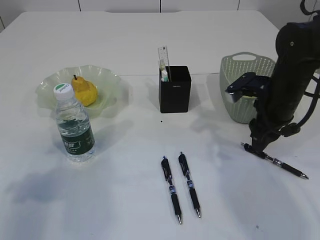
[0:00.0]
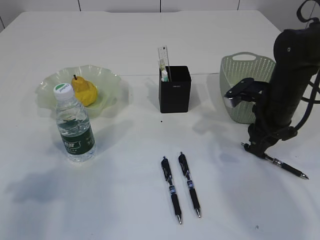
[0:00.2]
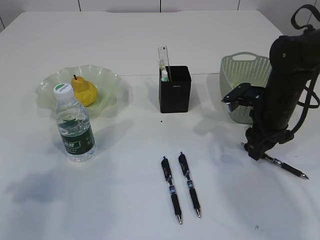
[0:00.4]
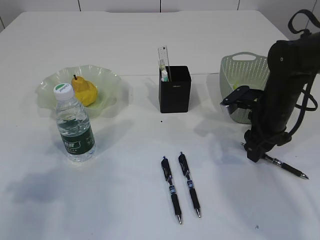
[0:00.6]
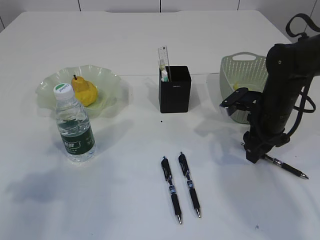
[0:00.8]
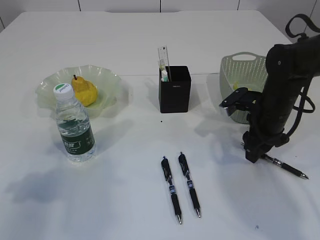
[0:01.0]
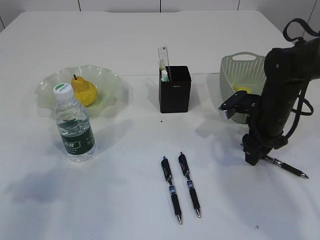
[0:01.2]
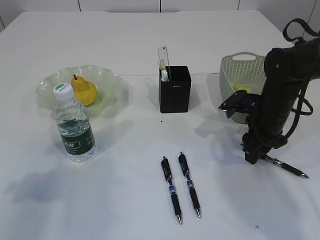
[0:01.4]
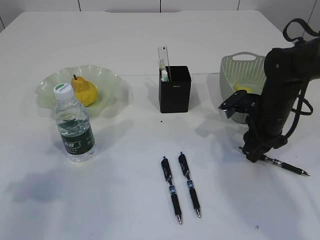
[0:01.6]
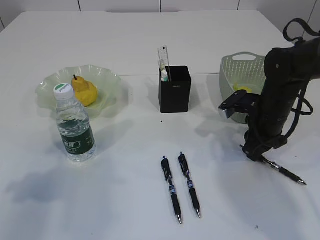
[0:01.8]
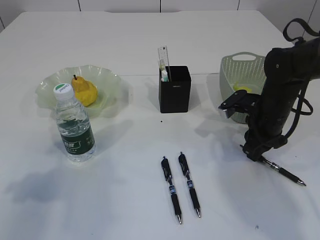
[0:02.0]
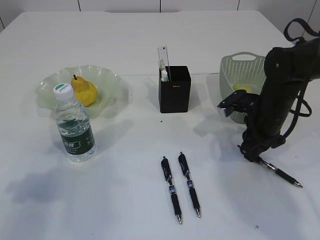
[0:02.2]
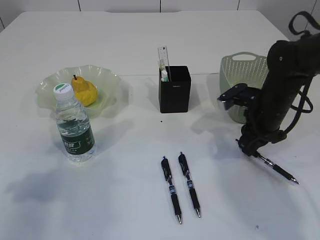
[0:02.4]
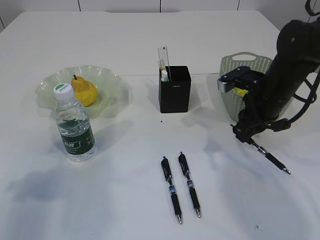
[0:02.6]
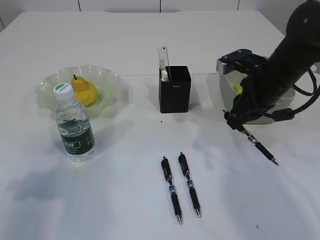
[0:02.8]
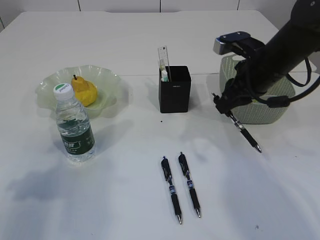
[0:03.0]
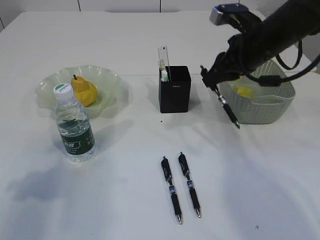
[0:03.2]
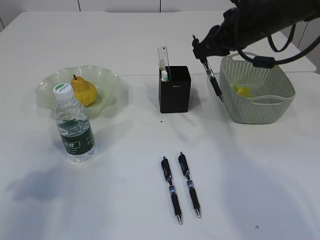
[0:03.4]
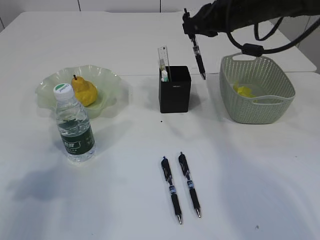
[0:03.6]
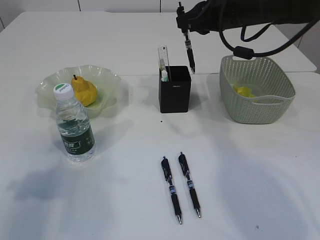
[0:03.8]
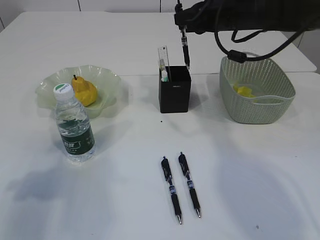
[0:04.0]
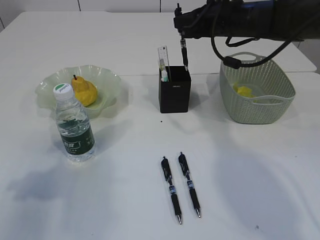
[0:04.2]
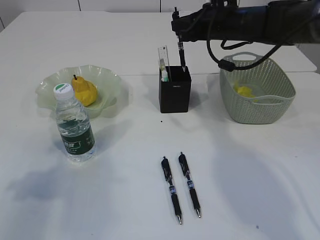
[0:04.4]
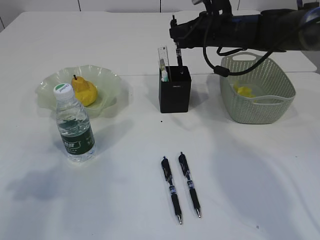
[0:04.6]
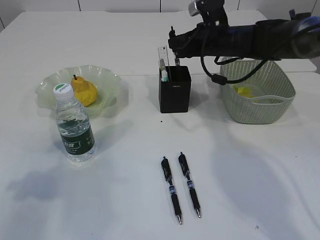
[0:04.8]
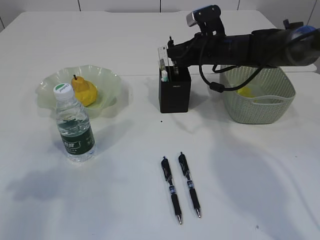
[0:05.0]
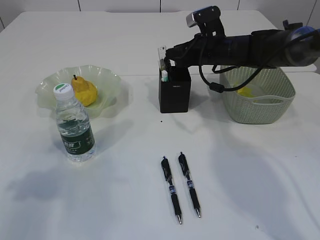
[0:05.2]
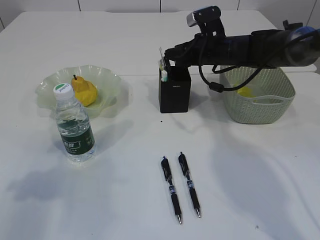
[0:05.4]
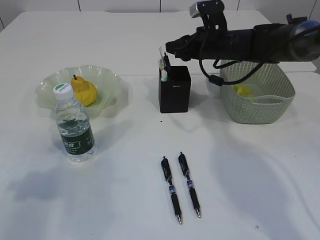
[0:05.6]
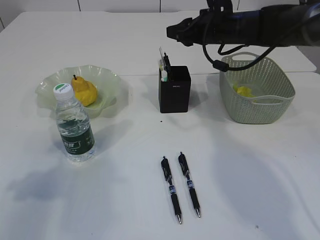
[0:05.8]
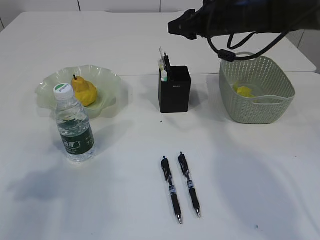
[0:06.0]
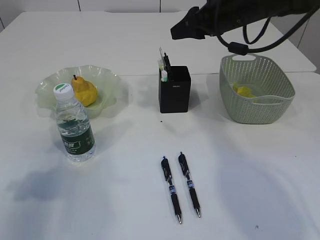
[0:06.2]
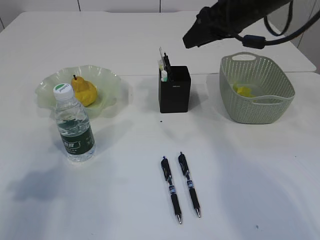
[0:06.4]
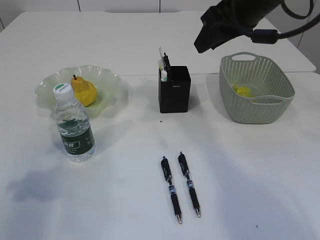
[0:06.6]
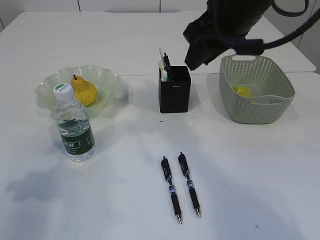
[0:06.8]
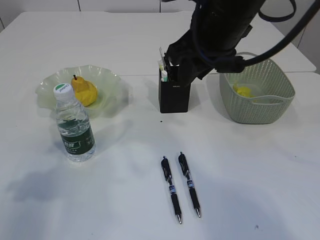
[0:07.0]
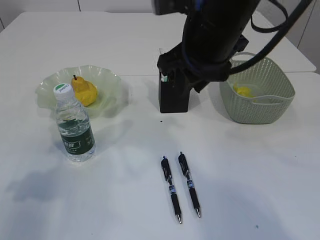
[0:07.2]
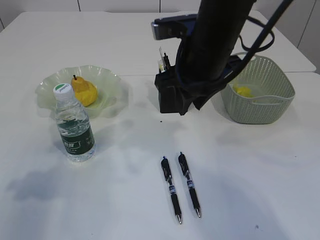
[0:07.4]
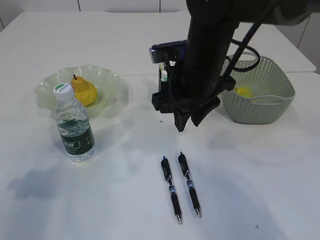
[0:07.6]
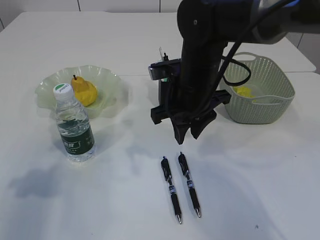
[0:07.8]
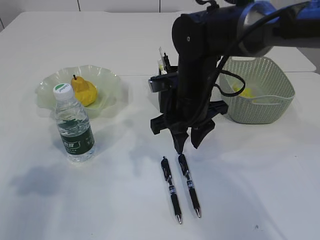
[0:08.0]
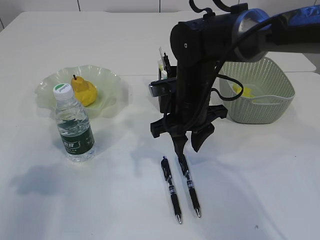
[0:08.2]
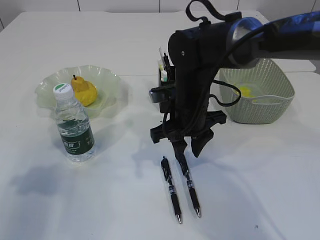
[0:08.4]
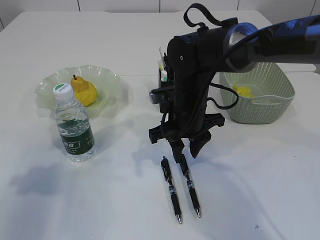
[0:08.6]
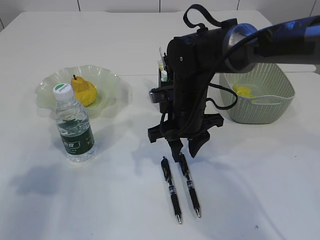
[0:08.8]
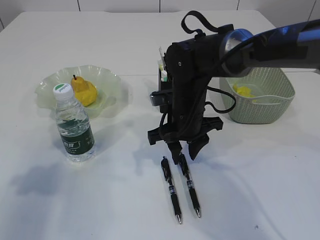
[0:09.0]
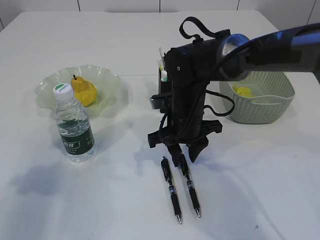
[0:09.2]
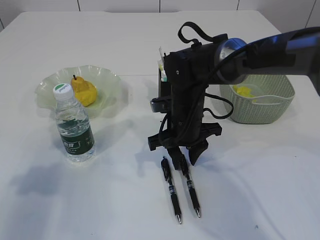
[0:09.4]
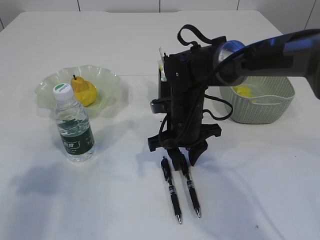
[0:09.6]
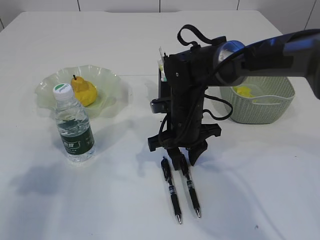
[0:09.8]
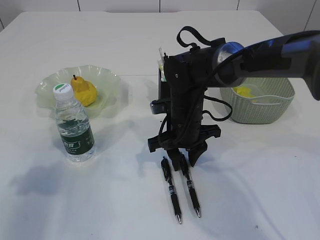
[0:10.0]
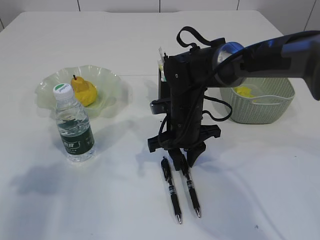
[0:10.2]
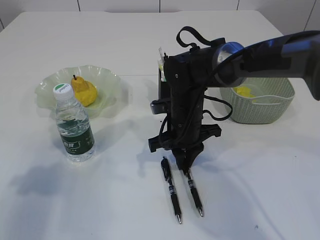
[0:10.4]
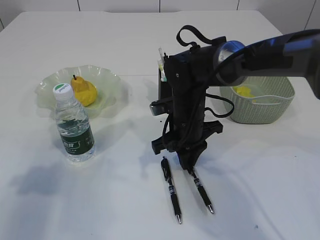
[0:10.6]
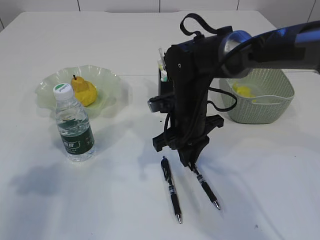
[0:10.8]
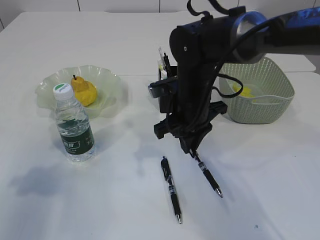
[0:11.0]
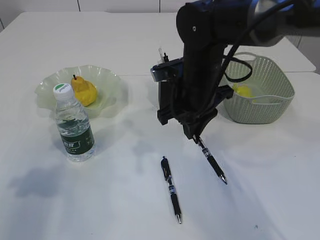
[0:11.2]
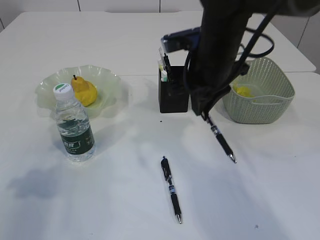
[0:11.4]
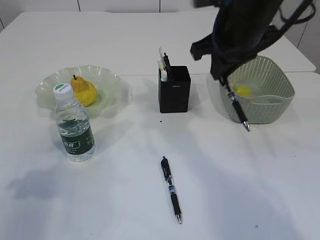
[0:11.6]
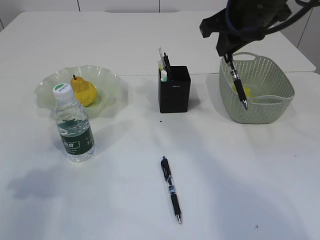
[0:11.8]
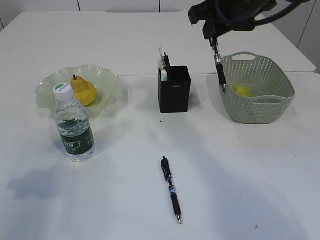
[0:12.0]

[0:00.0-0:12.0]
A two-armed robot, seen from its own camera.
Step, 0:00.0 to 0:02.4: Pick up the pen with right arm.
Step, 0:02.6 to 0:05.6: Place the pen into the pen holder.
Step, 0:05.8 to 0:11.0: Pick up the pen with right arm.
0:00.0 to 0:01.6: The grippers move only a little.
0:01.6 to 0:03.0: The right gripper moves upward, approximately 10 cm.
0:03.0 to 0:04.4: The right gripper heads forward, covering about 10 cm.
0:04.4 to 0:06.0: The right gripper moves about 5 cm downward and comes back.
0:06.0 to 0:07.6: The right gripper heads backward and to the left, covering approximately 15 cm.
0:07.6 to 0:09.0: The right gripper travels downward by about 10 cm.
0:09.0 to 0:10.4: The right gripper closes its fingers.
0:10.4 to 0:12.0: The right gripper is displaced upward by some 20 cm.

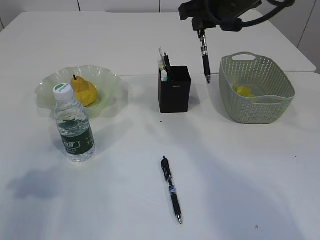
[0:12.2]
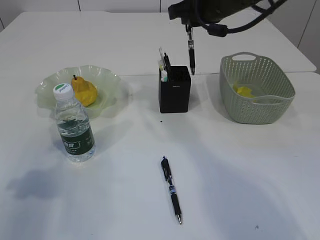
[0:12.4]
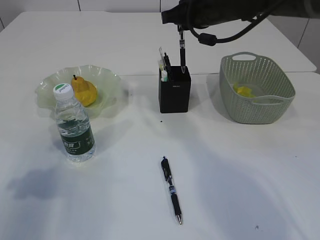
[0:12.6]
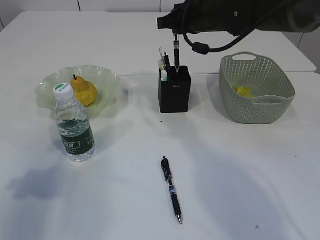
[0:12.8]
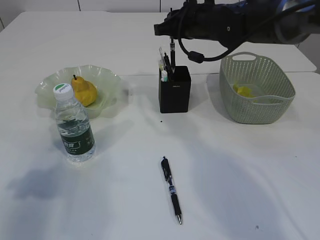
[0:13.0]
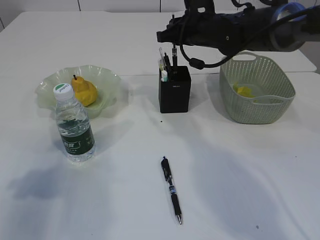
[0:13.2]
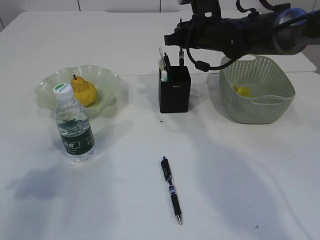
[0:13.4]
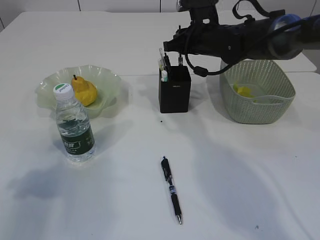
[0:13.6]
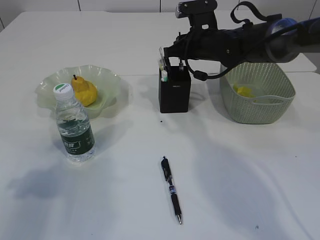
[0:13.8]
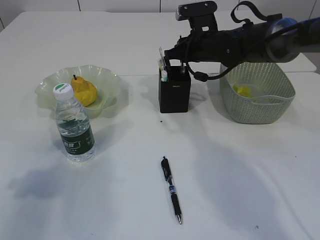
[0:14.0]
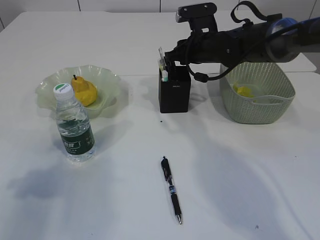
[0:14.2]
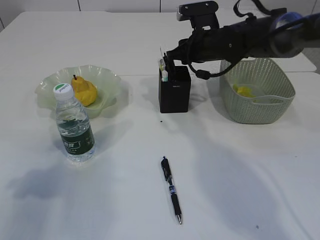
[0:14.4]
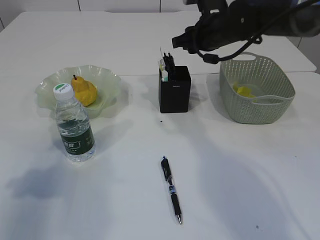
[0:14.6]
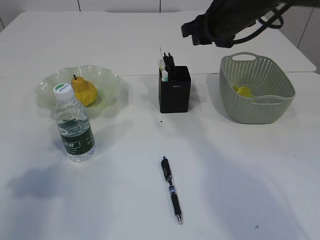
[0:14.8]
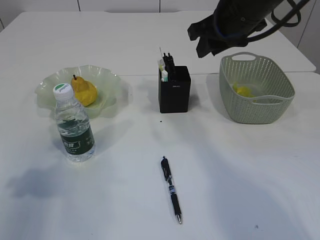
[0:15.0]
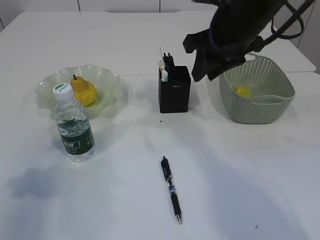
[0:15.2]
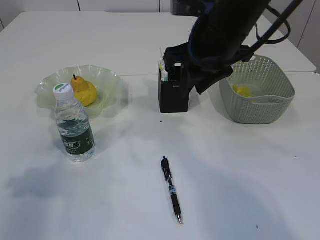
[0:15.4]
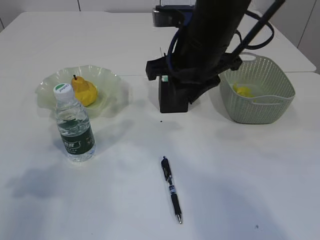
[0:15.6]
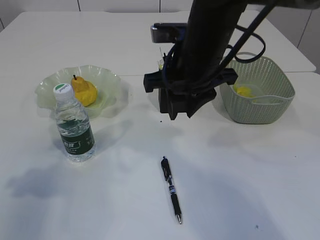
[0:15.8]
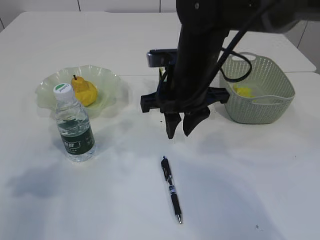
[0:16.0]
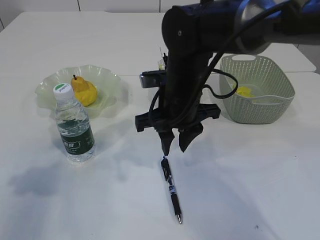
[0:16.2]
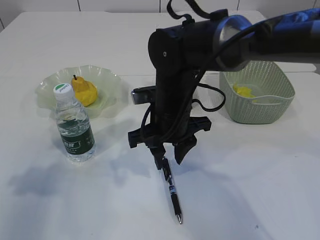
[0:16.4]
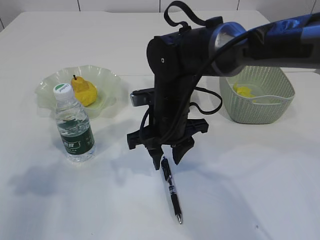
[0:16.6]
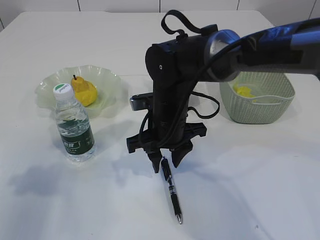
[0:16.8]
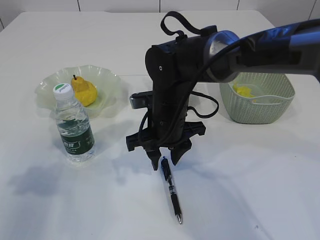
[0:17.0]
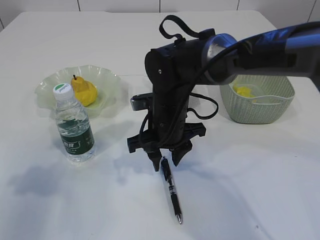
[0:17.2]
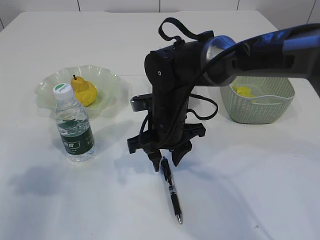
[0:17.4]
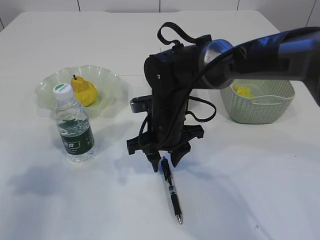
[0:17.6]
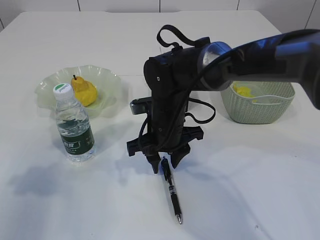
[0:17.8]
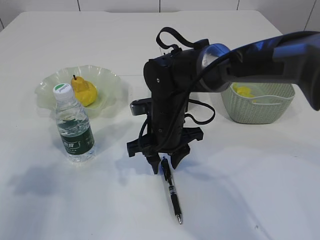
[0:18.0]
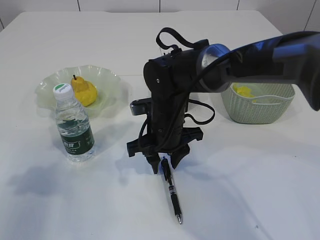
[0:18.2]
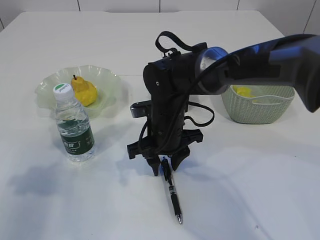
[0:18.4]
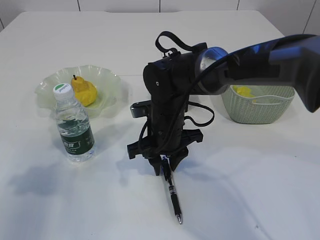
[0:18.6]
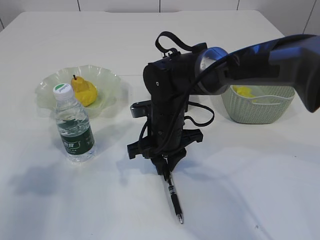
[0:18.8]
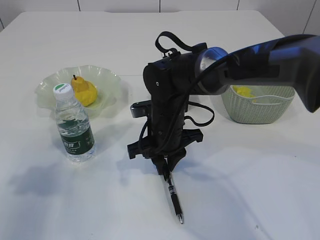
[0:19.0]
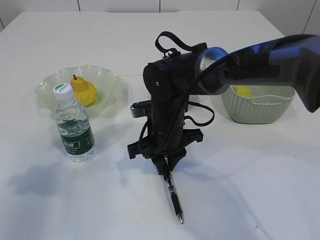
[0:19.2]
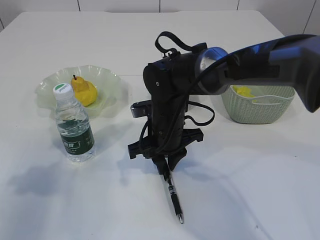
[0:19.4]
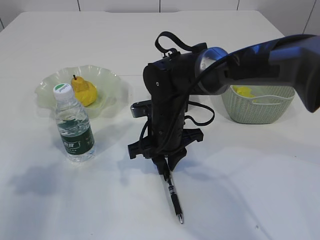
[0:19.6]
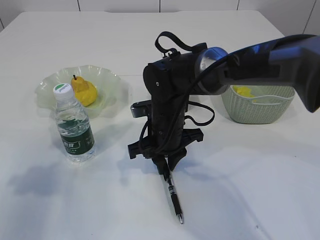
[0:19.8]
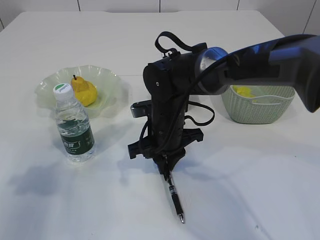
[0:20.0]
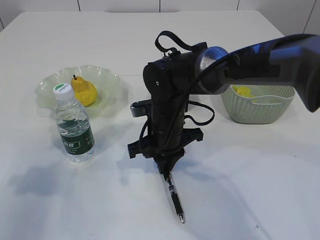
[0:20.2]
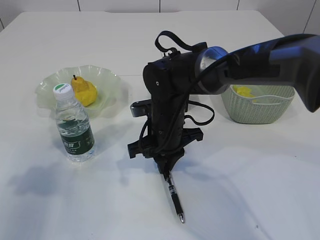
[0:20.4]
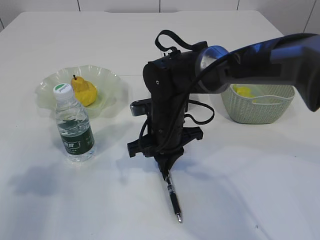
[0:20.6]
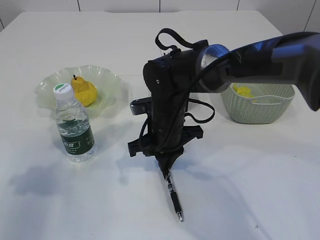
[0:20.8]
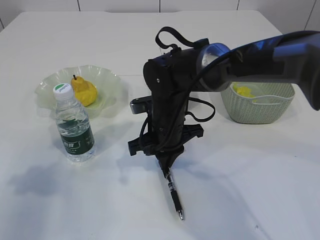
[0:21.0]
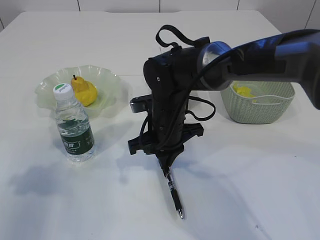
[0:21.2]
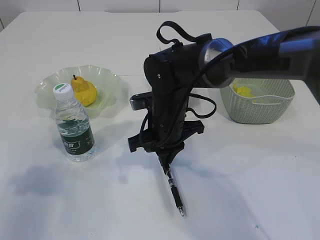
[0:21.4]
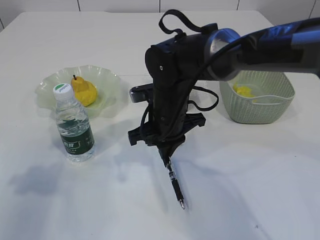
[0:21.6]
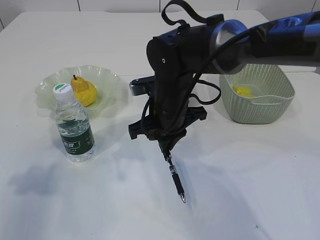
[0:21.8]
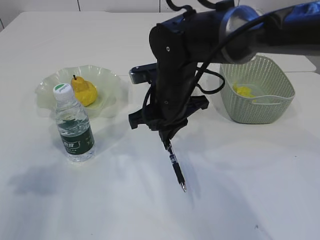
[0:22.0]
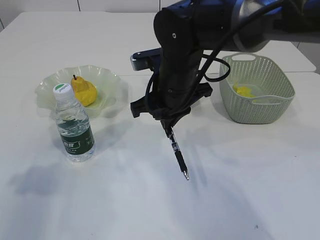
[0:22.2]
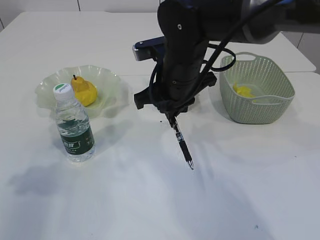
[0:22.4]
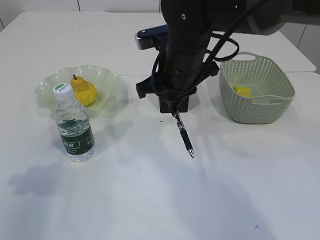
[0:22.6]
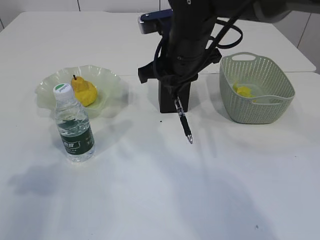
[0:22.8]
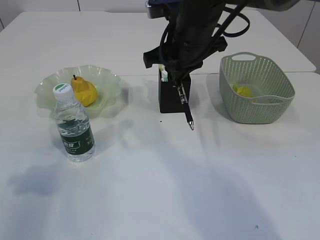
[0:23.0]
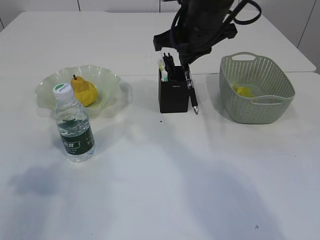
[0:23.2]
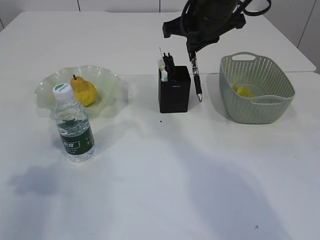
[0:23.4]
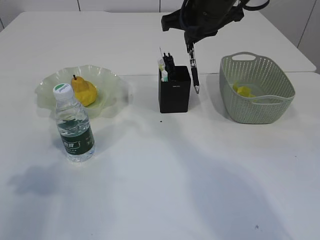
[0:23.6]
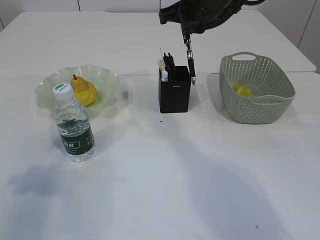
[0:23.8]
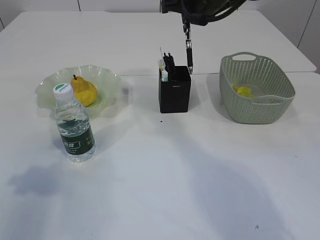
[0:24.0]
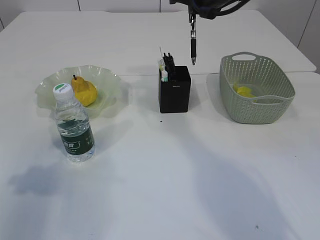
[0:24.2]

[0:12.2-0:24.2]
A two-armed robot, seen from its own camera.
Step, 0:12.2 to 0:14.4: Place the pen into the pen holder.
Step, 0:14.6 to 0:21.4: Pick up the pen with right arm.
0:12.2 to 0:13.8: The right gripper goes about 15 cm downward and forward.
0:13.8 to 0:15.2: The right gripper travels backward and upward by approximately 15 cm.
0:15.2 to 0:16.6: The right gripper moves downward and to the left, about 20 cm.
0:16.6 to 0:18.2: The grippers make only small movements.
0:18.2 to 0:21.2: The two grippers keep their place.
0:21.2 to 0:22.6: The right gripper shifts about 10 cm upward.
0:22.6 to 0:24.2: The right gripper goes some 15 cm forward, upward and to the right.
